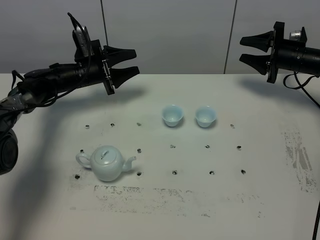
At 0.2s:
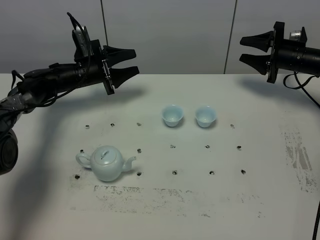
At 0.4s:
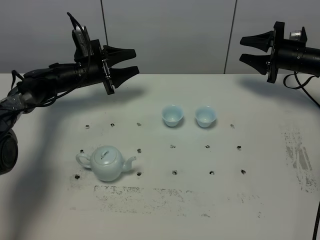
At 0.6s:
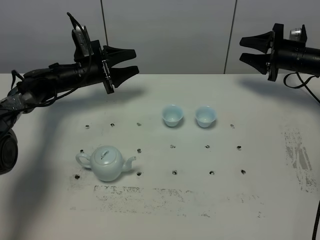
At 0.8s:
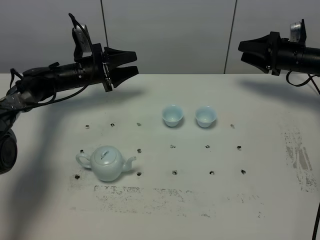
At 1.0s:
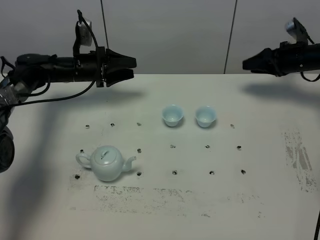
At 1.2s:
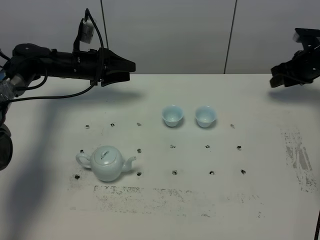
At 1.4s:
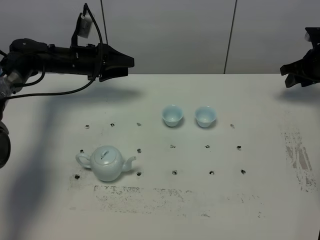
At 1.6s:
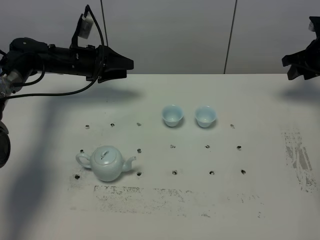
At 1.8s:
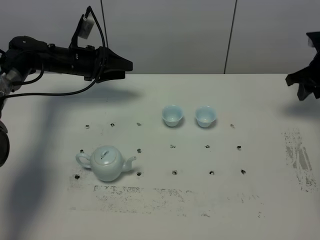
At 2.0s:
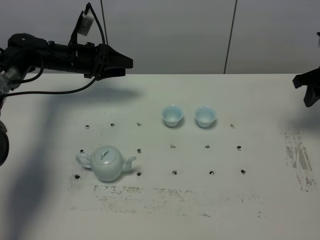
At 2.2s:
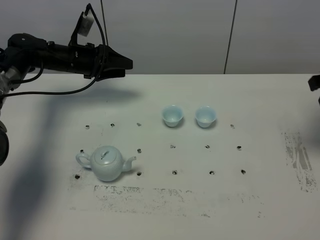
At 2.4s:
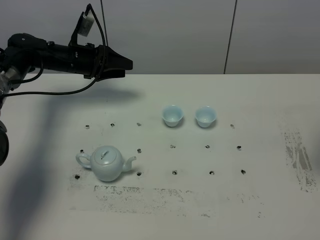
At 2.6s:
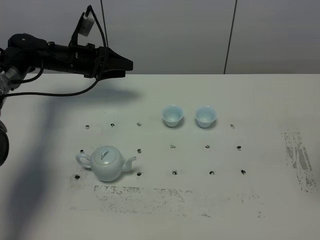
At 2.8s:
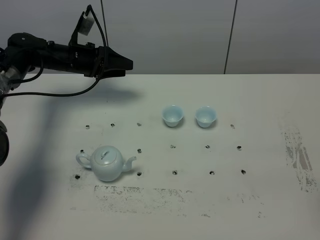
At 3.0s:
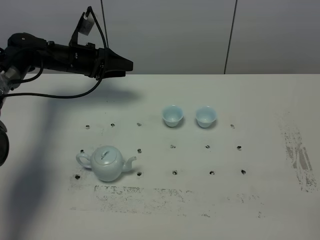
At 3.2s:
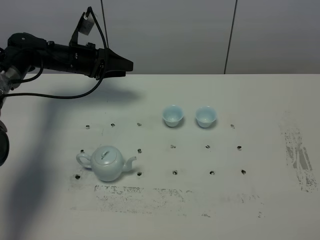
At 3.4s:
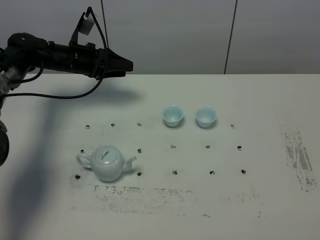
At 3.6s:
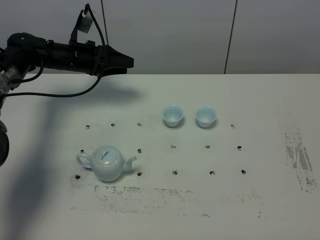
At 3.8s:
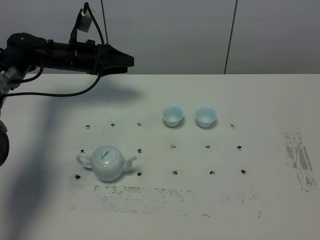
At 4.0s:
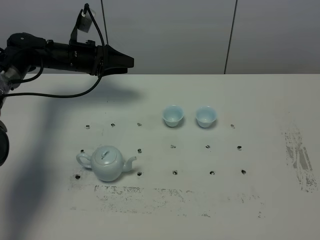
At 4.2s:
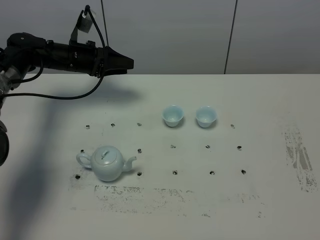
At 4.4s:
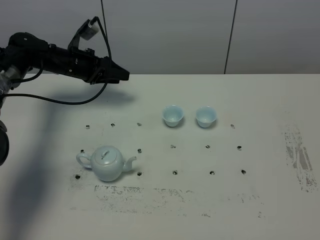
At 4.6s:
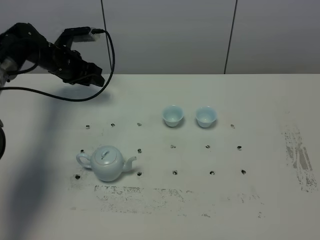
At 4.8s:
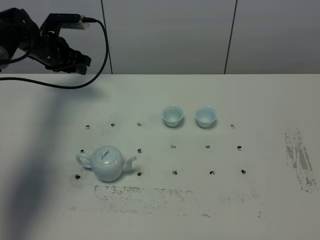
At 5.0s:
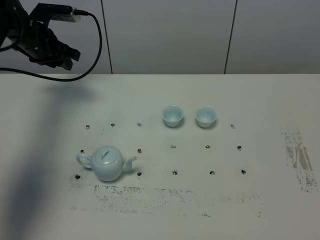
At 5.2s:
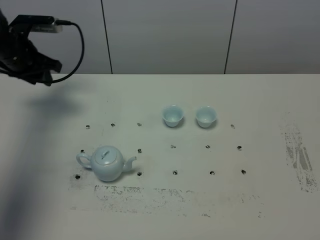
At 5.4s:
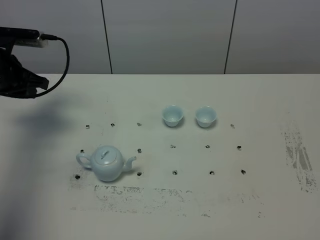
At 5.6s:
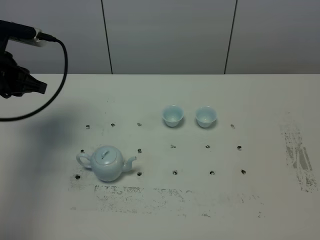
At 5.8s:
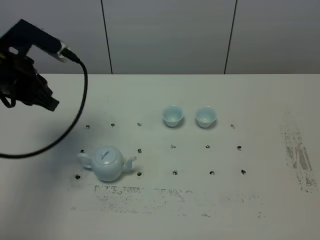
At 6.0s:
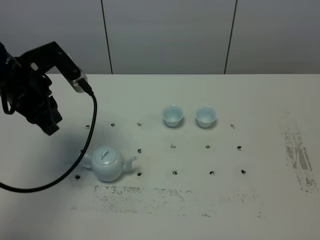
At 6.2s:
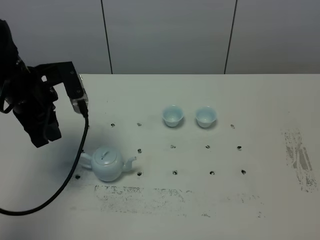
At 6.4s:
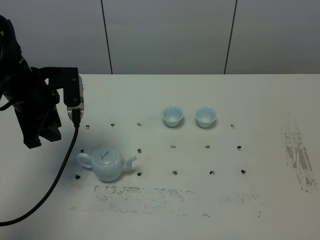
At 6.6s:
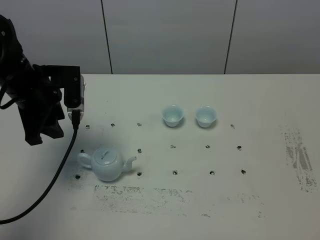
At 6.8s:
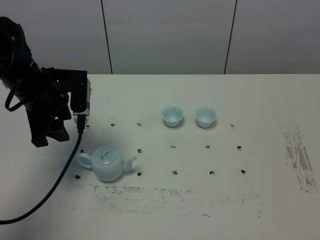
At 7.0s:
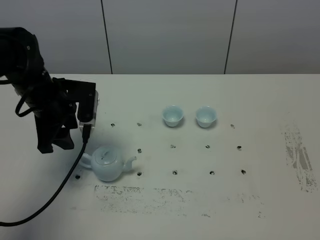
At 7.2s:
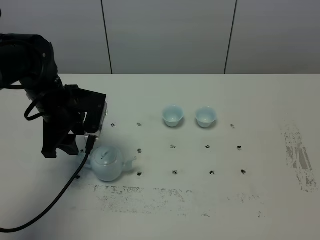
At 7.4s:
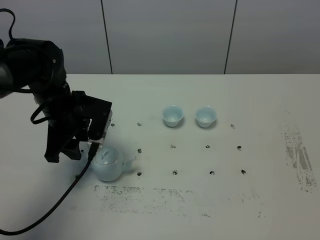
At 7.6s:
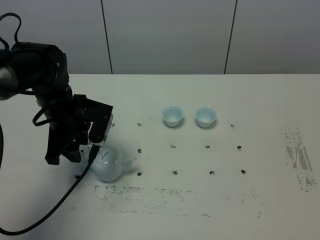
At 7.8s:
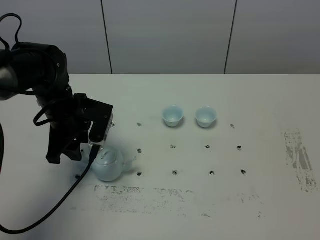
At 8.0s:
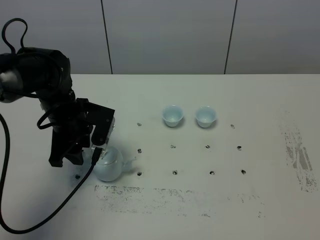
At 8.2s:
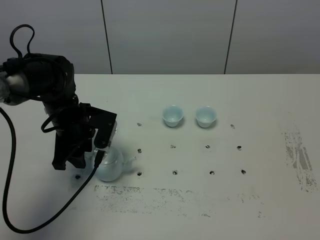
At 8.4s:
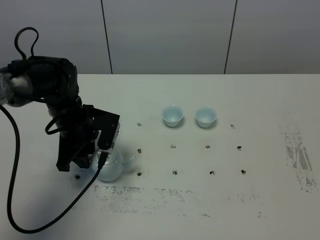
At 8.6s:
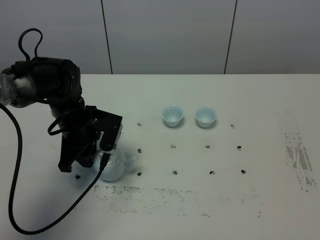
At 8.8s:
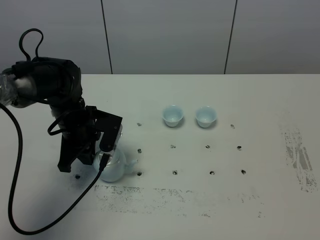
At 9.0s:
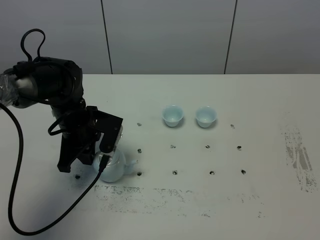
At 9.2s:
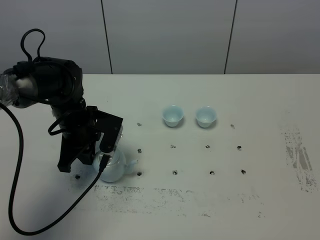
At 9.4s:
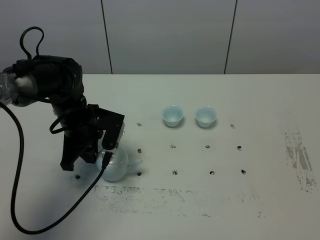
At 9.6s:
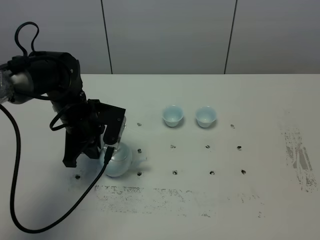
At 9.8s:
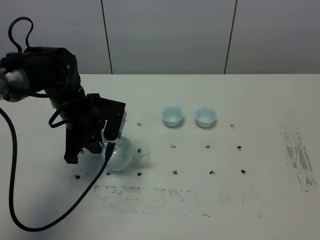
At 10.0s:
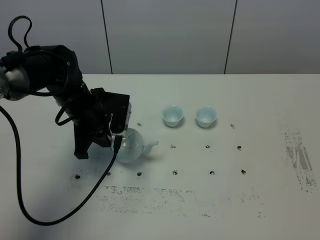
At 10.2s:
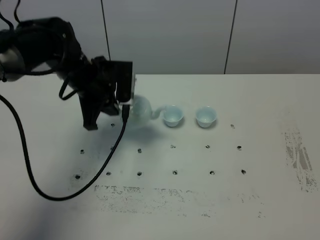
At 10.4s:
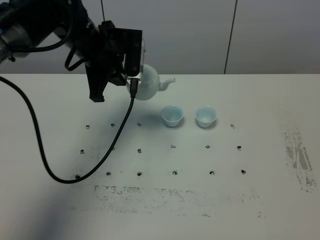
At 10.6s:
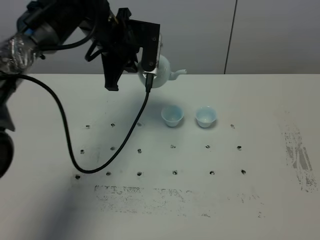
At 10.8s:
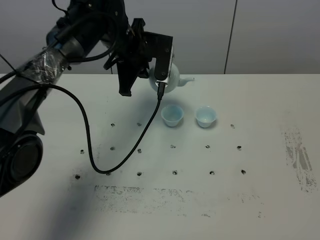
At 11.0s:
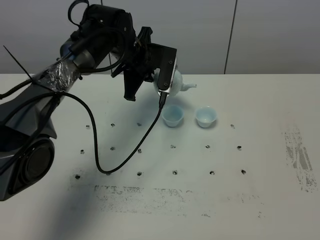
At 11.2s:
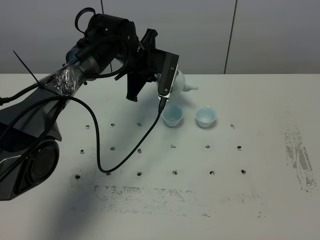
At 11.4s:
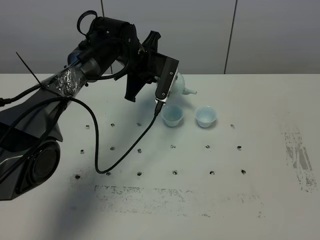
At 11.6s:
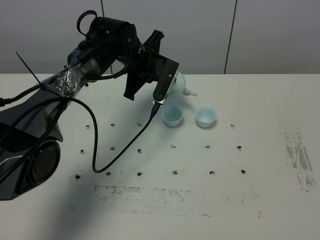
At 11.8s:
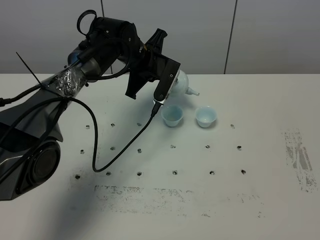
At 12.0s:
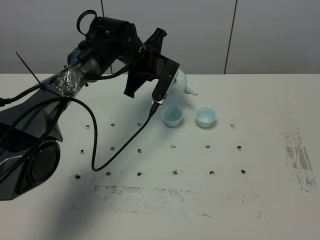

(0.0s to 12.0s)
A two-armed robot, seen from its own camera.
Task of the whole recording: grasp the blue porcelain teapot and pour the tea into the two blue porcelain teacups one by one, put the blue porcelain teapot back in its original place.
Step, 0.0s - 9.6s: Pick up the teapot with the left gripper.
0.0s - 1.6s: The right gripper ends up approximately 5 cm from where it was.
1.6s - 3.0s: The right gripper travels backward by about 40 cm.
3.0s - 4.4s: The right gripper shifts approximately 15 cm backward and downward, and closes its fingers.
4.4s - 6.0s: The left gripper is displaced backward and upward by about 25 cm, and closes up.
6.0s - 7.6s: The left gripper heads downward, covering approximately 10 cm, and opens.
7.6s - 9.0s: The left gripper closes its fingers.
9.0s - 10.4s: The left gripper moves upward and forward, roughly 15 cm.
10.4s - 12.0s: The left gripper shifts about 10 cm downward, forward and to the right.

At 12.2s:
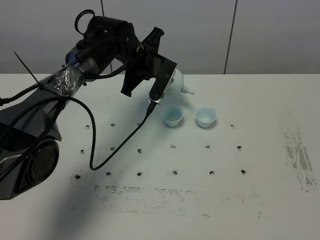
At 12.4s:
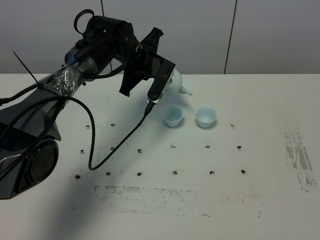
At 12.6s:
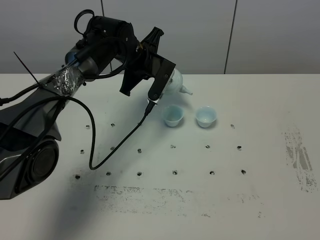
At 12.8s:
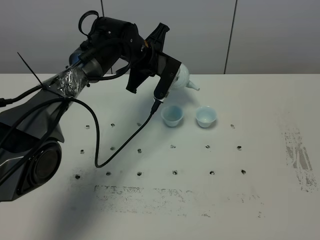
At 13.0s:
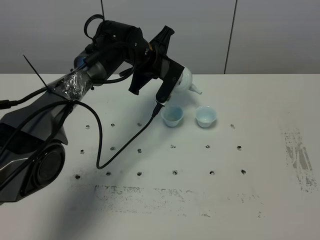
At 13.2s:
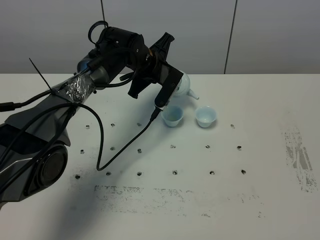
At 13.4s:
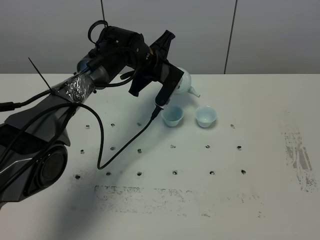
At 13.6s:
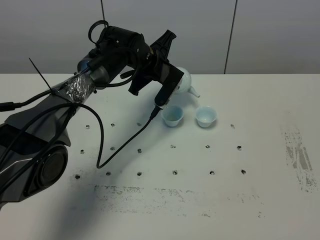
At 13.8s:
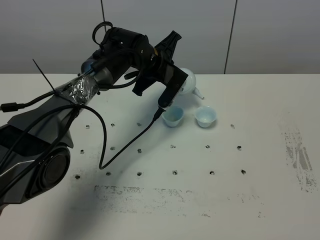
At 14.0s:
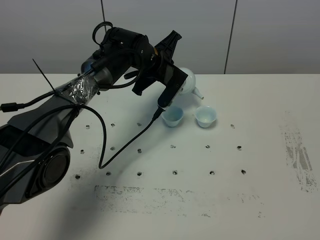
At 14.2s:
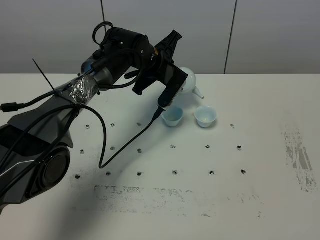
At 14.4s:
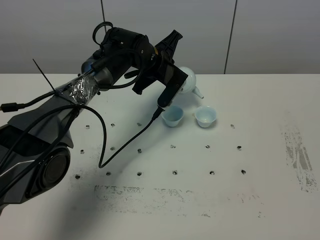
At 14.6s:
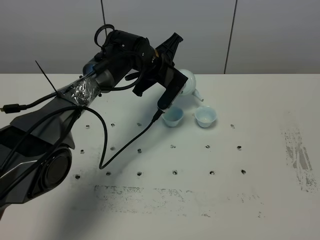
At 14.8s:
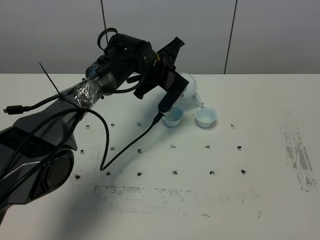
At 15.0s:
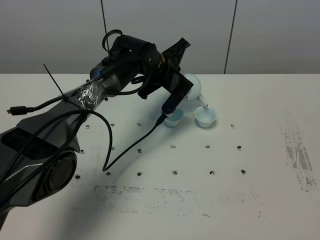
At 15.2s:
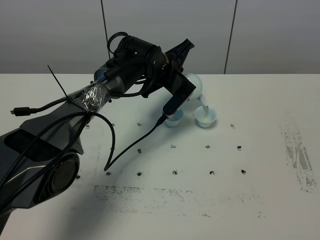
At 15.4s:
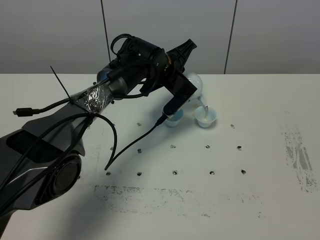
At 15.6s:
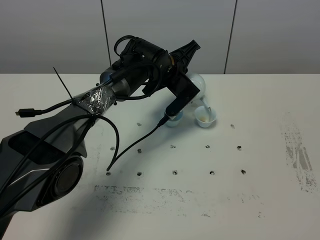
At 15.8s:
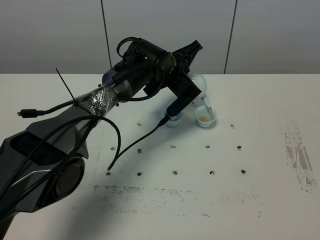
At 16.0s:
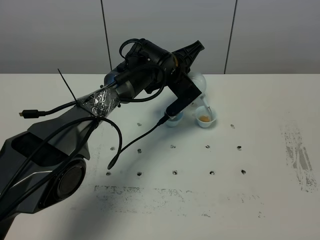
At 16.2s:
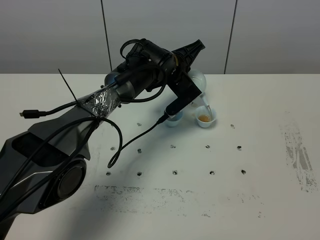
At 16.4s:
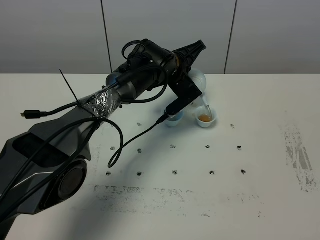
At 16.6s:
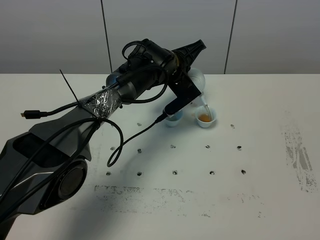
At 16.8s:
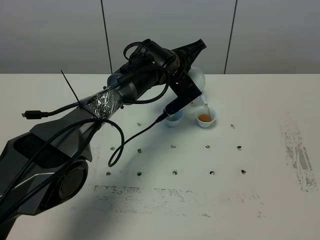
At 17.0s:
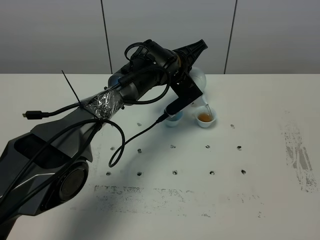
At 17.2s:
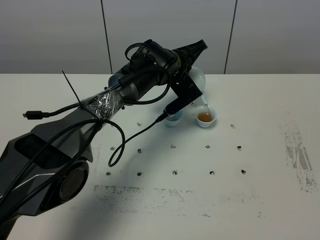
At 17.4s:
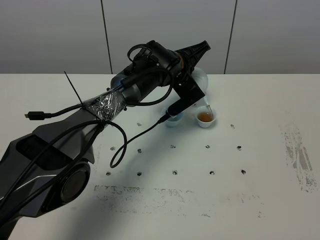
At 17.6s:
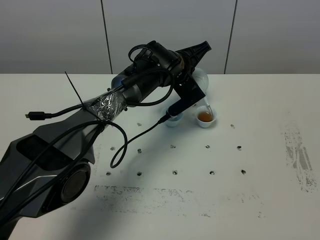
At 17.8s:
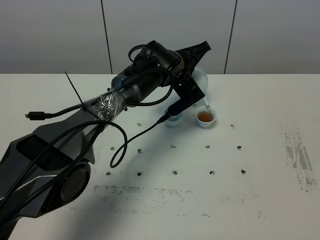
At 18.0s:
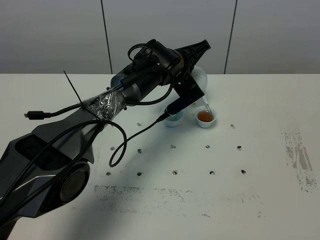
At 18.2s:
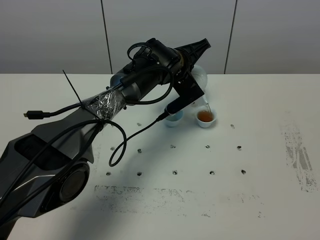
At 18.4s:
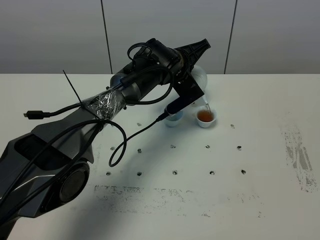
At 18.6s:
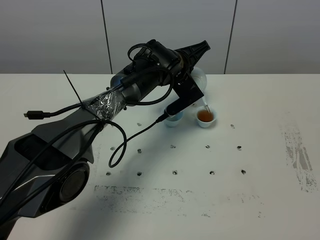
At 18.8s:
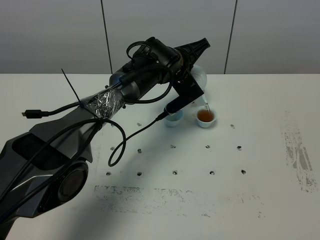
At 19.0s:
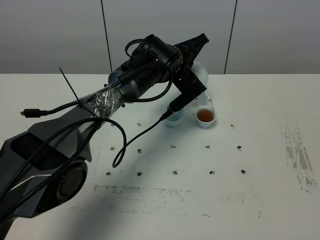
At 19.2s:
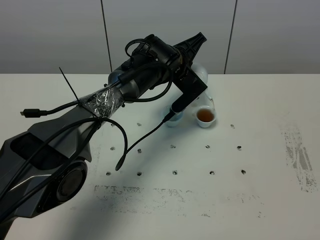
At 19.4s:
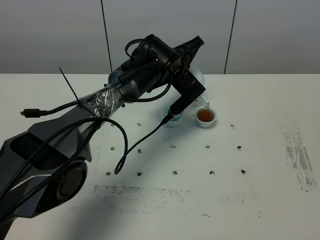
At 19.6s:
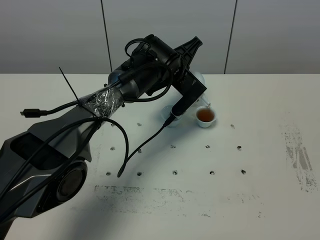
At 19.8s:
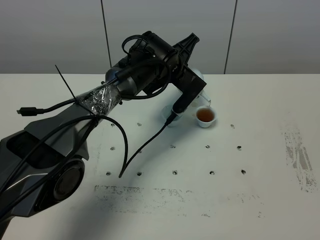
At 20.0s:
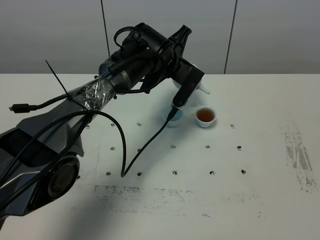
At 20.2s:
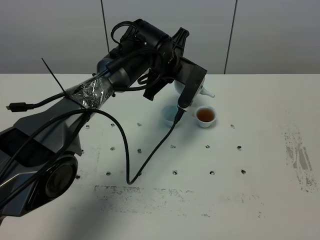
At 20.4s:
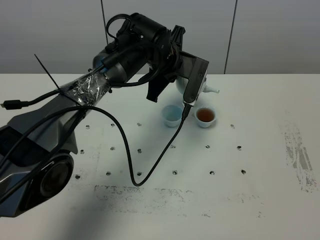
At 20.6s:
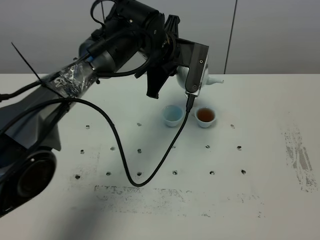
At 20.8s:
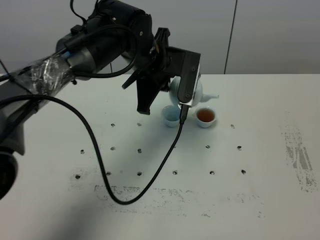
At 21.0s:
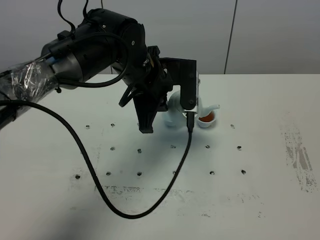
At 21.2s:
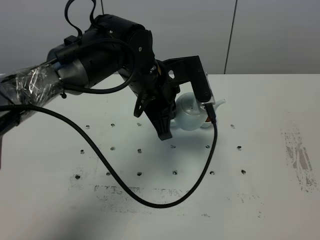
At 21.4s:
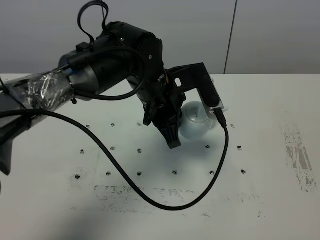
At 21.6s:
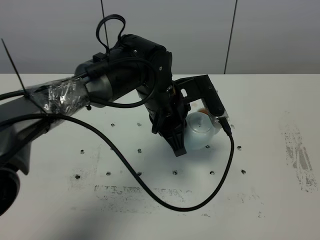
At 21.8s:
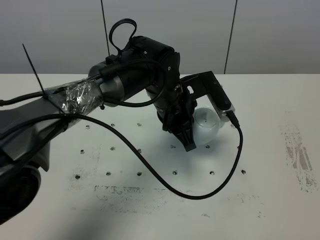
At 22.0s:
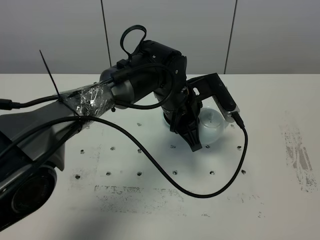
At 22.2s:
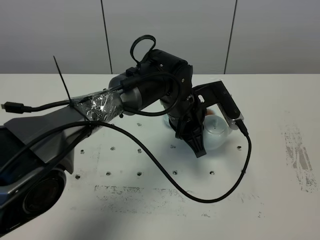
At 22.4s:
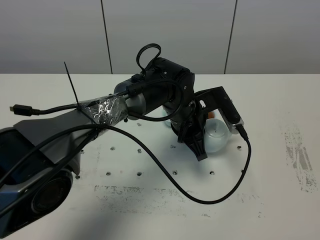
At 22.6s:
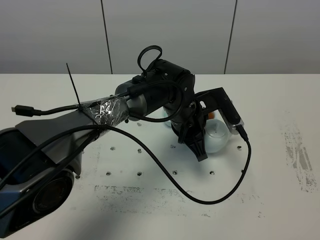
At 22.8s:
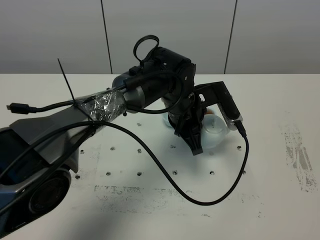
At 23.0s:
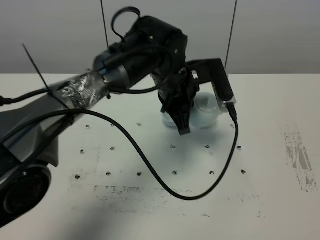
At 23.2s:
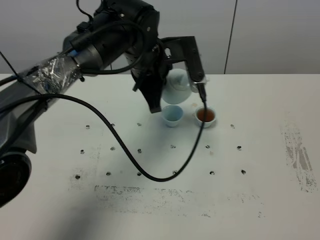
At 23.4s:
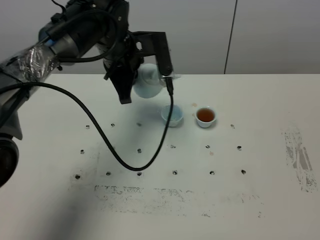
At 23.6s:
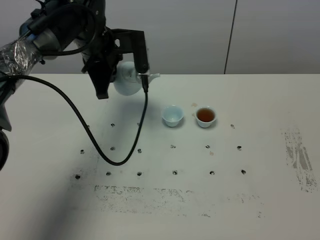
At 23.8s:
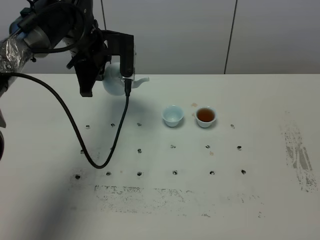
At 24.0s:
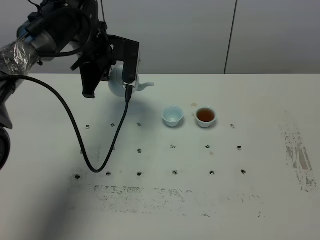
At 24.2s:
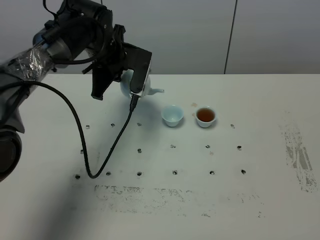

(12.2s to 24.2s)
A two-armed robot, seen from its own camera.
Task of the whole recording: grasp the blue porcelain teapot and pour the tea into the two blue porcelain teacups one by one, put the blue porcelain teapot back in its original place.
Step, 12.2s - 20.0s: Pour tea into the teacup with the left gripper.
12.2s - 13.8s: The grippers make only small movements.
13.8s - 15.2s: There are only small adjustments of the grippers.
15.2s - 16.6s: There are only small adjustments of the grippers.
16.6s - 18.2s: Neither gripper changes place.
18.2s - 19.8s: The grippers stay close to where they were, moving slightly.
19.8s - 21.2s: The left gripper shifts approximately 15 cm backward and upward.
21.2s - 22.6s: The left gripper moves downward and to the right, roughly 10 cm.
22.6s - 24.2s: The left gripper travels to the left, forward and upward by roughly 20 cm.
